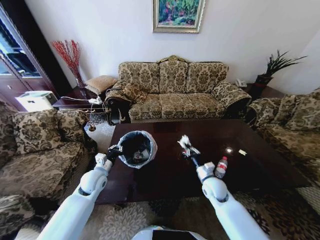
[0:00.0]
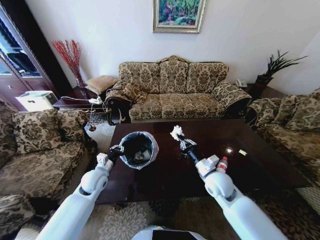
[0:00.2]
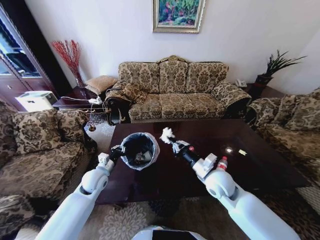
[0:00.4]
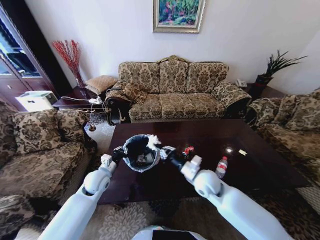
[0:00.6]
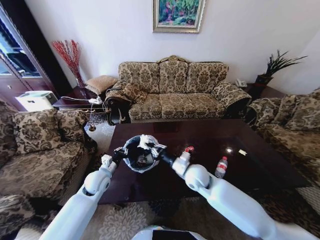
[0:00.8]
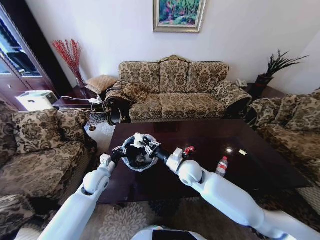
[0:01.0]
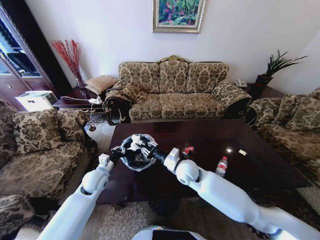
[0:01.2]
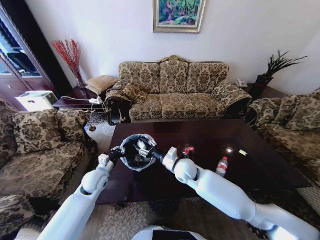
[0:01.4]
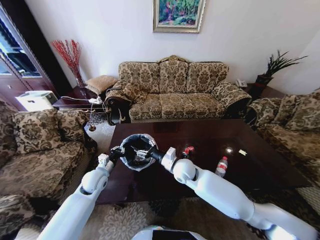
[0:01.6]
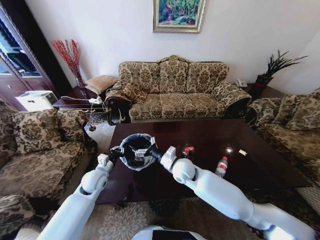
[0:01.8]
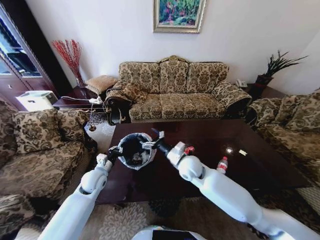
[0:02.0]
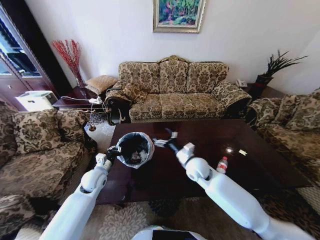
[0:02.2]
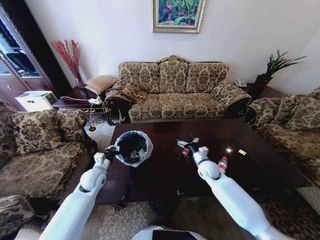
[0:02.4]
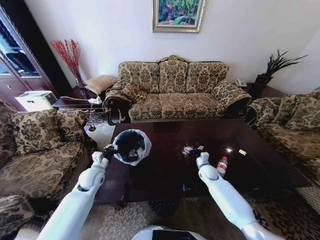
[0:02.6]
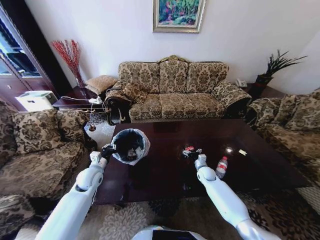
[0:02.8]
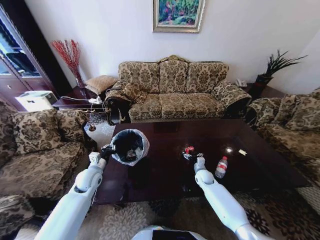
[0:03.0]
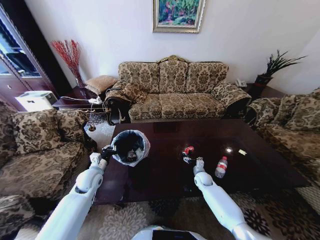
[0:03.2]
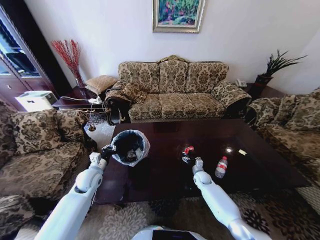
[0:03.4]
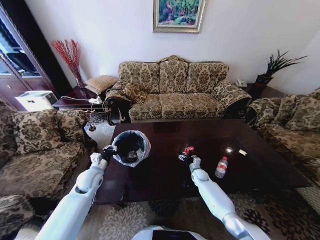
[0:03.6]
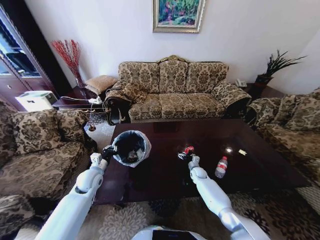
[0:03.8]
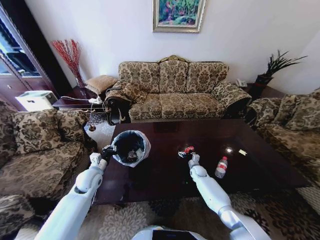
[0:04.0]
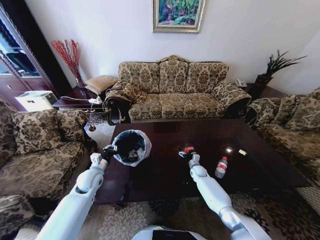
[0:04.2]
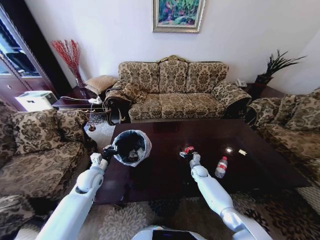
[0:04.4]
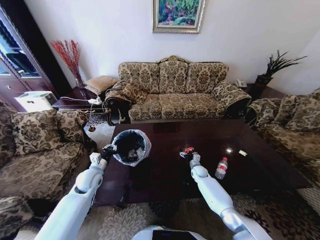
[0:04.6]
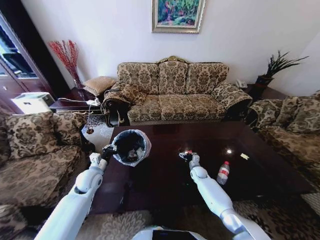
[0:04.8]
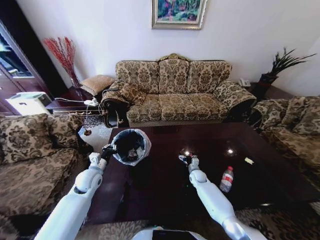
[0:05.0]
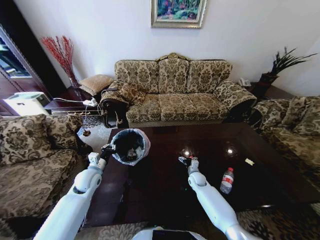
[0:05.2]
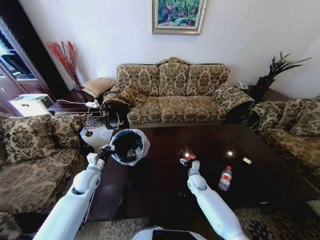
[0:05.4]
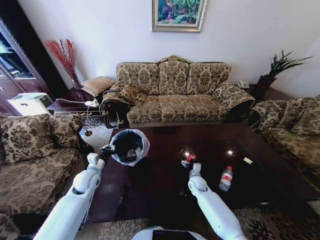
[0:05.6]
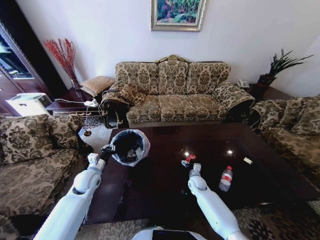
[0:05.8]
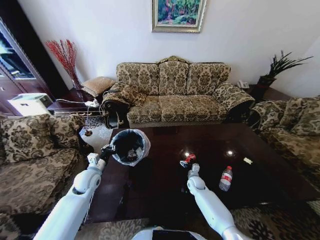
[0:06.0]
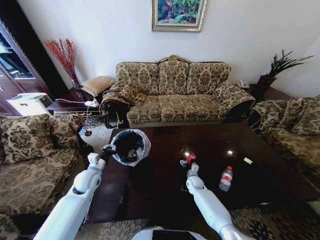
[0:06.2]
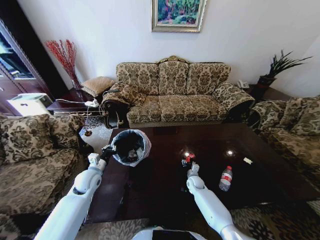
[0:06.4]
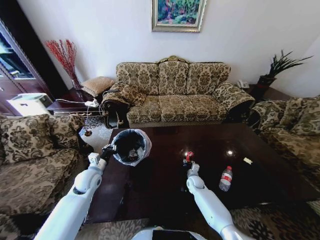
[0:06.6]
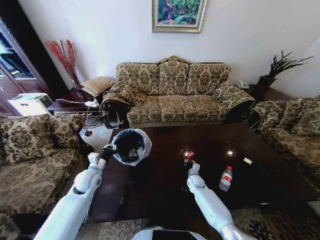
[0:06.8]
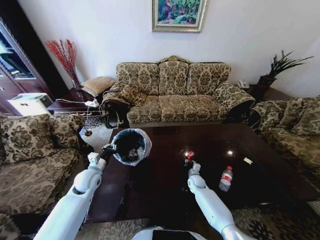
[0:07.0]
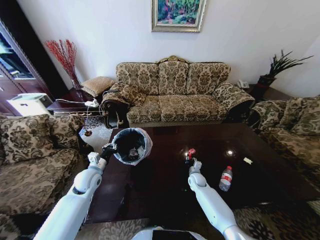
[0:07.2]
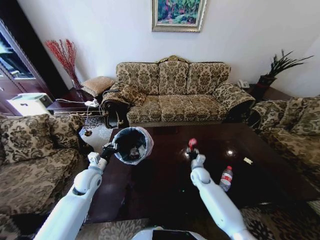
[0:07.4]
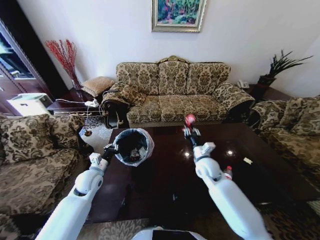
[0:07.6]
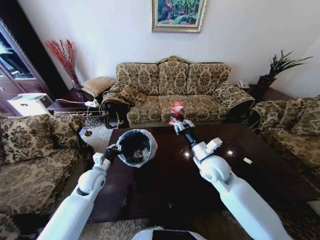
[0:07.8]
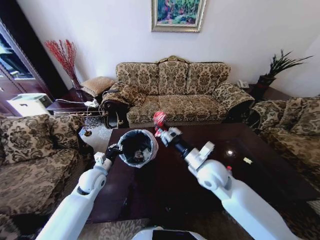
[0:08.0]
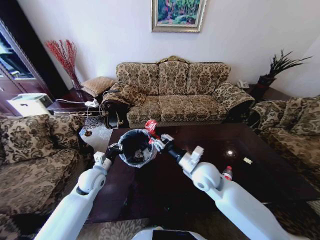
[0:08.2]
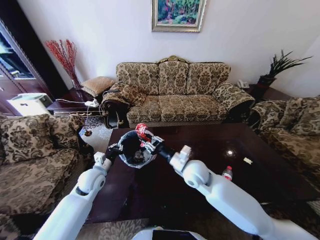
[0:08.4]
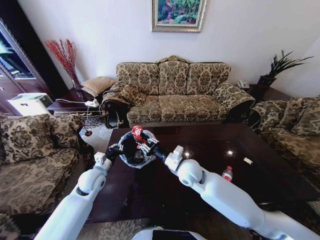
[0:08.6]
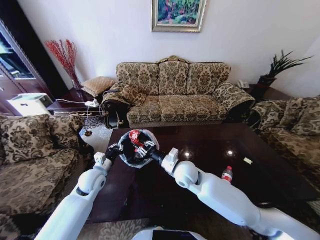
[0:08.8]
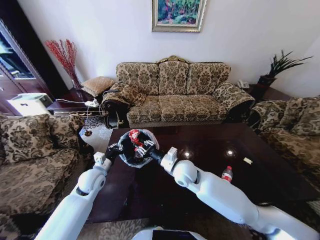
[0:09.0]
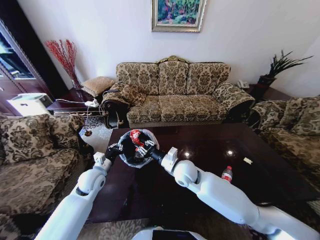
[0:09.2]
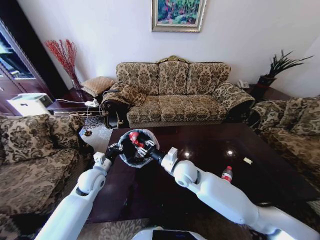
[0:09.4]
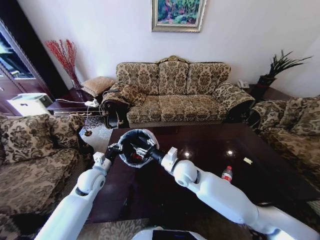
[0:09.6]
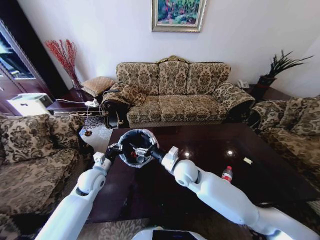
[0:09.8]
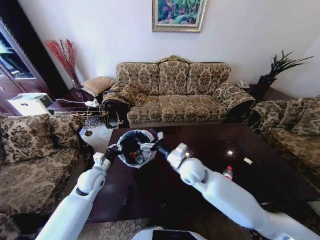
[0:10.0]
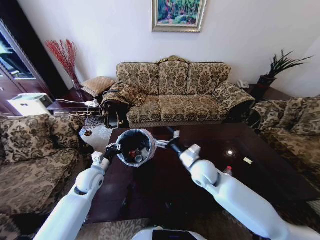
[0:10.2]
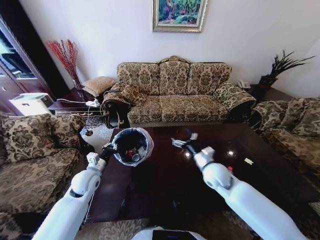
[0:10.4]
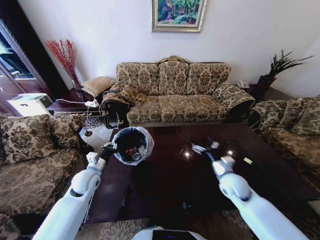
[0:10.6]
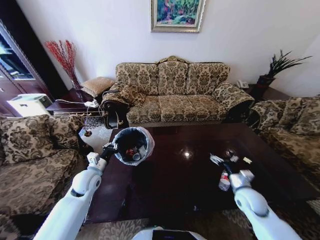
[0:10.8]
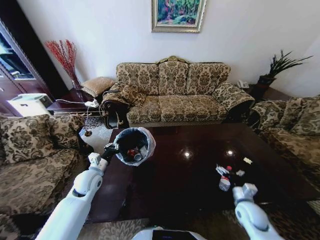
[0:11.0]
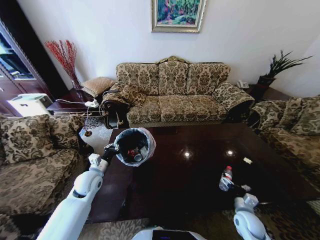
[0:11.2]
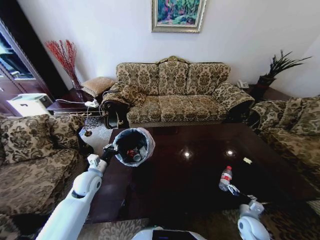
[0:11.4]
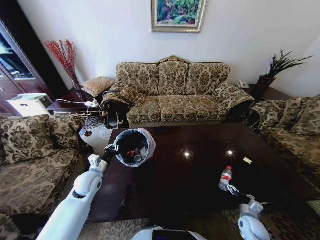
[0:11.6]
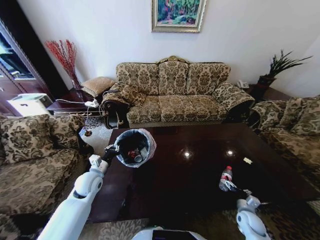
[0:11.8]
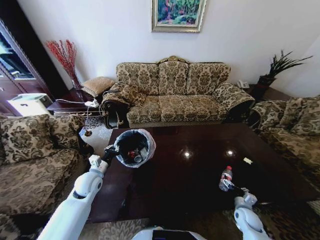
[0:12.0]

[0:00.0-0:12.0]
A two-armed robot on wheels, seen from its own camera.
Task of the whole recording: Move to the front of the table and place the trash on the table into the trash bin.
0:00.0 to 0:01.6: The right gripper goes roughly 15 cm to the left and upward, and opens its fingers.
0:01.6 to 0:03.0: The right gripper shifts some 25 cm downward and to the right.
0:03.0 to 0:04.4: The right gripper ends up about 5 cm from where it was.
0:04.4 to 0:06.0: The right gripper travels backward by approximately 5 cm.
0:06.0 to 0:07.6: The right gripper is displaced upward by some 25 cm, and closes its fingers.
0:07.6 to 0:09.0: The right gripper travels to the left by roughly 10 cm.
0:09.0 to 0:10.4: The right gripper is displaced to the right by about 15 cm, and opens its fingers.
0:10.4 to 0:12.0: The right gripper shifts approximately 35 cm downward, to the right and backward.

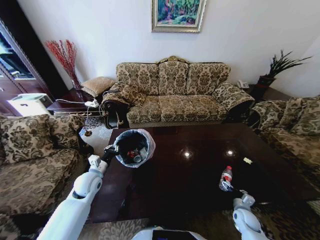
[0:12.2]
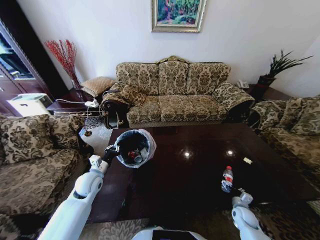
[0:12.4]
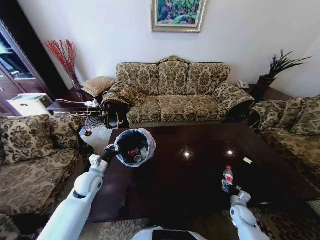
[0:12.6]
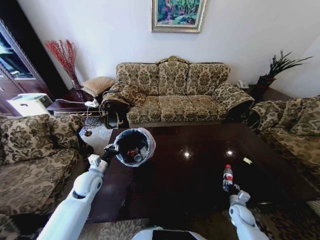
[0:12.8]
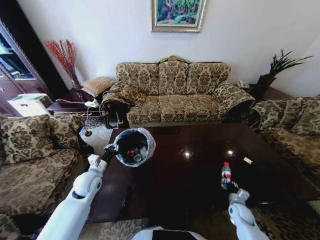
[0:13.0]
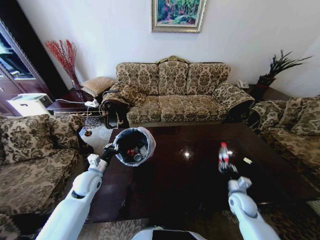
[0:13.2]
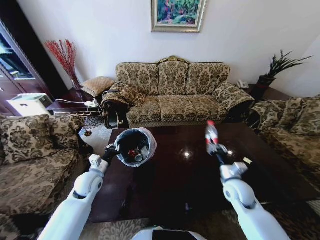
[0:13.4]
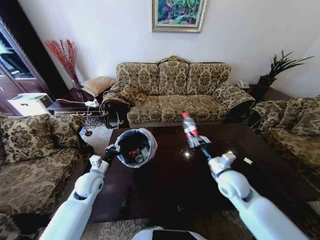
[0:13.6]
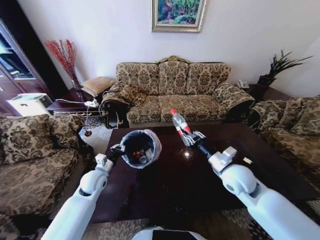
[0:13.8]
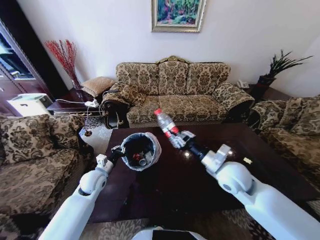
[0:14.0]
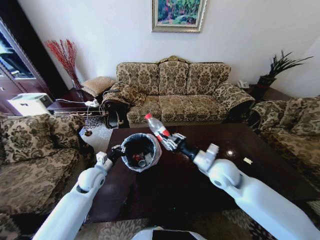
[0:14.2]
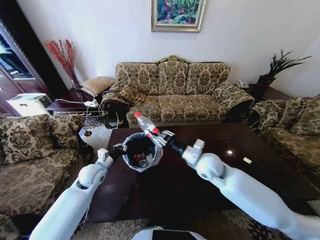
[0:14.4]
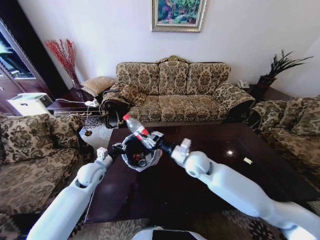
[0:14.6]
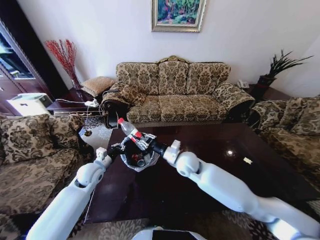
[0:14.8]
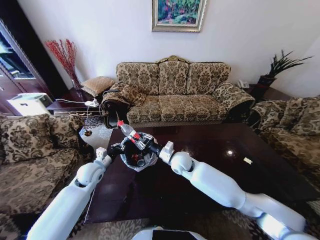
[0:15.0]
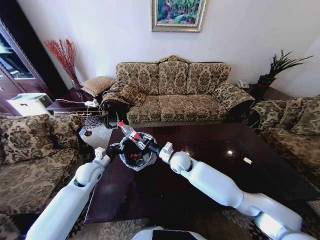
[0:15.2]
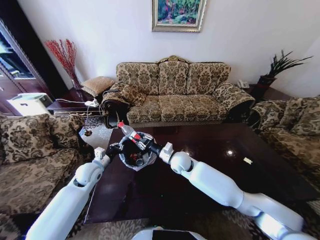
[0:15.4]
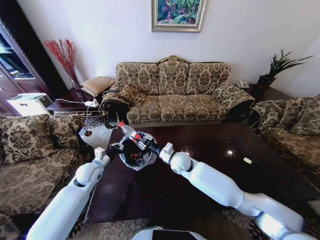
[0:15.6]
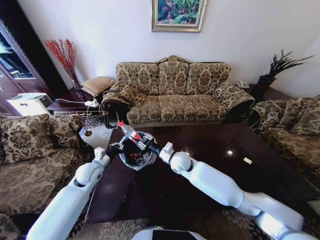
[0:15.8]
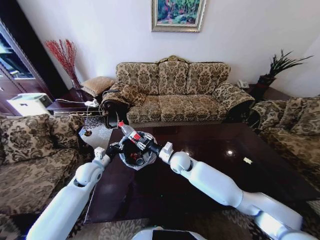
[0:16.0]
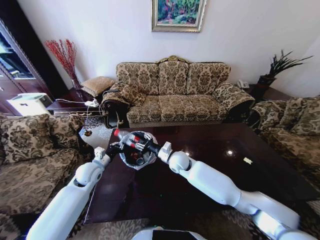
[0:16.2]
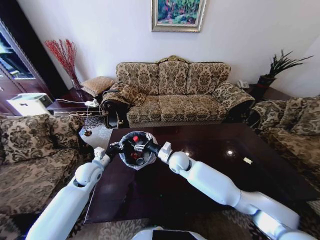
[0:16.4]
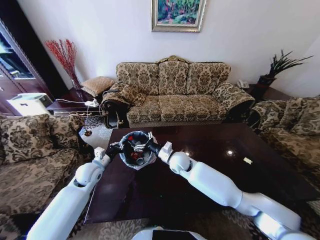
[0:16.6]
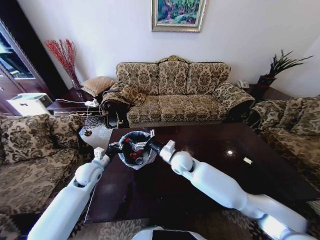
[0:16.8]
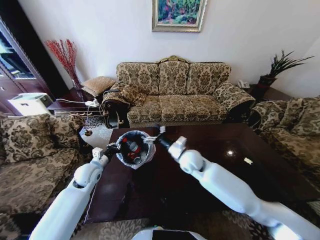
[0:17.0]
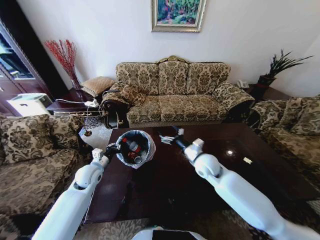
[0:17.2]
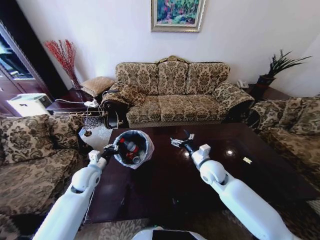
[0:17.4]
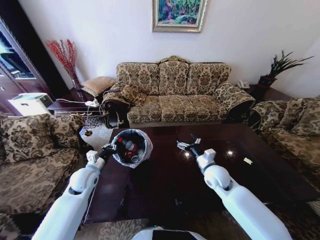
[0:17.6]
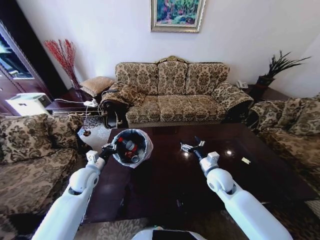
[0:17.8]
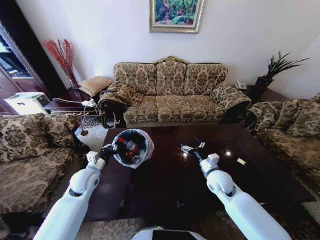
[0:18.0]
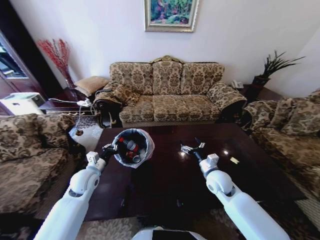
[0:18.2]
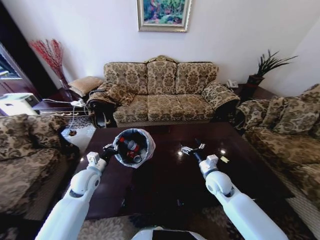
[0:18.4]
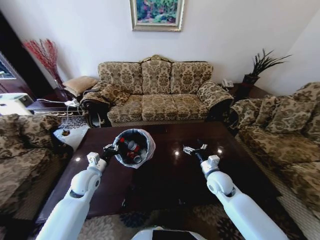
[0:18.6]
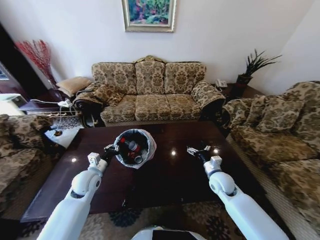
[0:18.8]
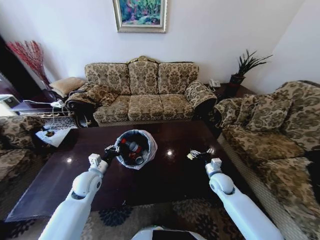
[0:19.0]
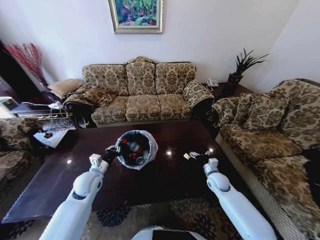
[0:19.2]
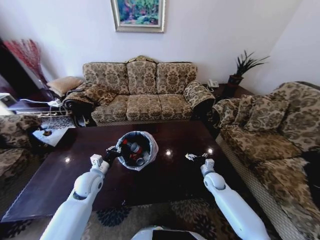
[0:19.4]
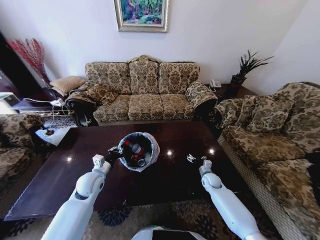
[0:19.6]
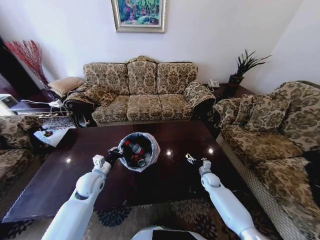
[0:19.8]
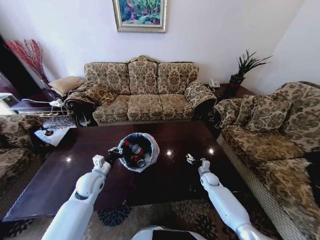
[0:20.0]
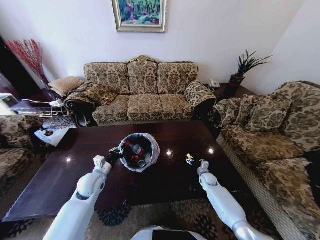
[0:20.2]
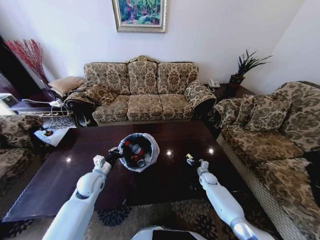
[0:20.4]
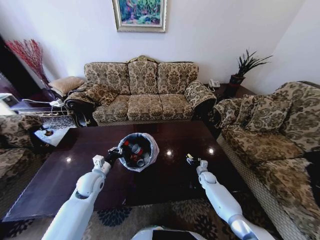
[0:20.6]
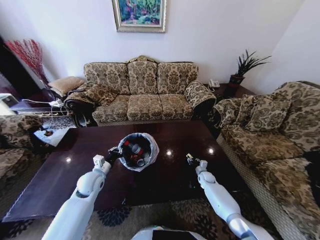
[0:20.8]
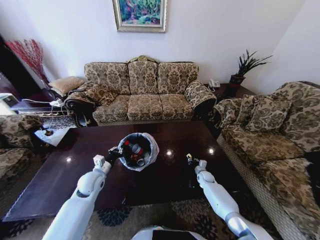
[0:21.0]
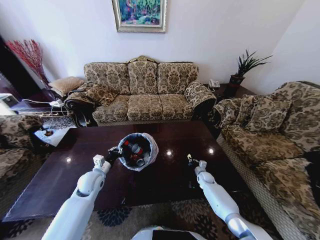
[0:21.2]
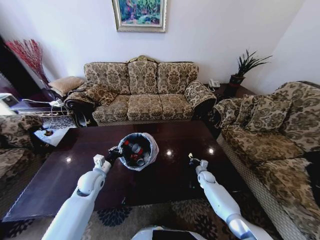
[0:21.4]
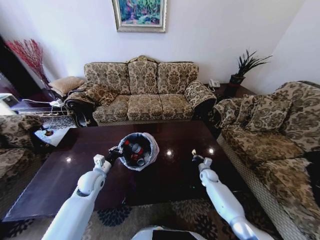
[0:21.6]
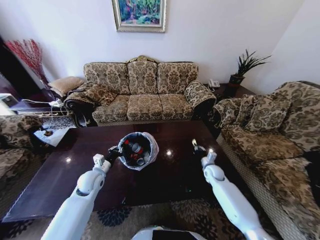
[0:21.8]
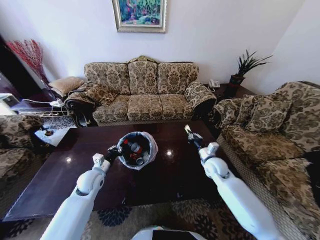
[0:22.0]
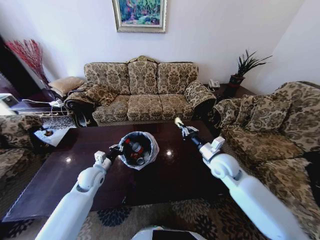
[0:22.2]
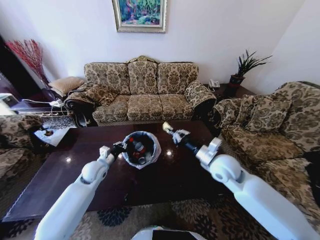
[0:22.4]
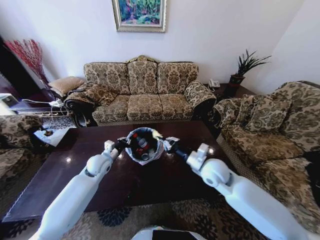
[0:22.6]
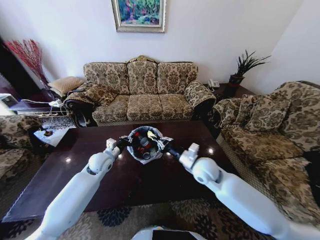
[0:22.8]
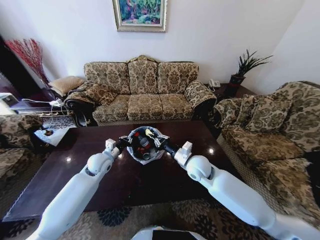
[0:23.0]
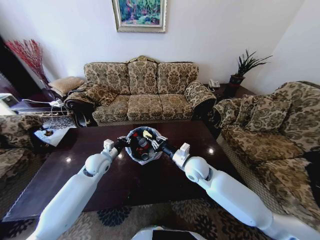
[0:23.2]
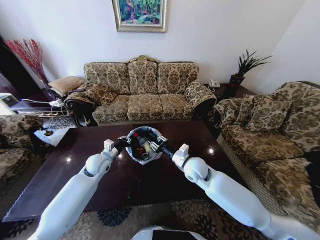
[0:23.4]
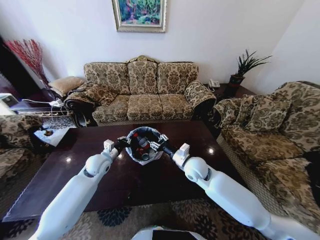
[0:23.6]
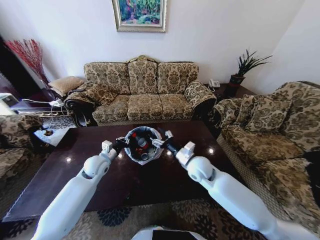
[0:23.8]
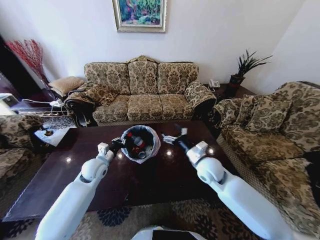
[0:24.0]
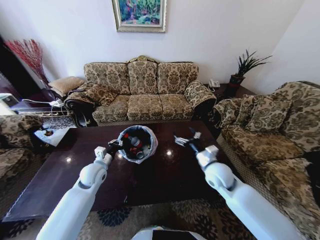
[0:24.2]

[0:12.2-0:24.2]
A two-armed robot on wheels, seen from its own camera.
Task of the whole recording: Move to the front of the table and place the trash on the table into the trash bin.
0:12.2 to 0:13.8: The right gripper heads upward and to the left, covering some 35 cm, and closes up.
0:13.8 to 0:15.2: The right gripper moves to the left and forward, about 20 cm.
0:15.2 to 0:16.6: The right gripper opens its fingers.
0:16.6 to 0:18.2: The right gripper moves to the right and backward, roughly 20 cm.
0:18.2 to 0:19.8: The right gripper shifts about 20 cm downward and forward.
0:19.8 to 0:21.2: The right gripper shifts by about 5 cm, and closes.
0:21.2 to 0:22.6: The right gripper travels upward by roughly 30 cm. The left gripper is displaced forward by some 5 cm.
0:22.6 to 0:24.2: The right gripper moves roughly 5 cm to the left and comes back, and opens up.
